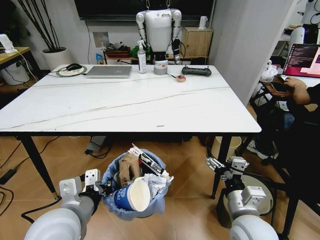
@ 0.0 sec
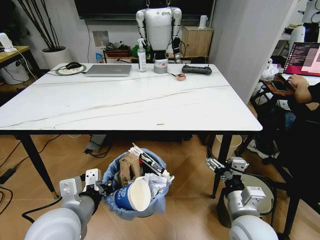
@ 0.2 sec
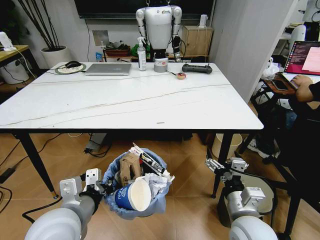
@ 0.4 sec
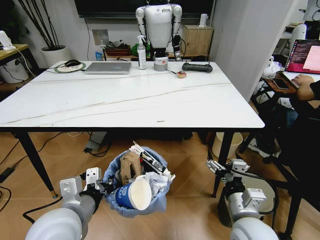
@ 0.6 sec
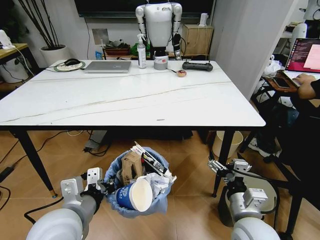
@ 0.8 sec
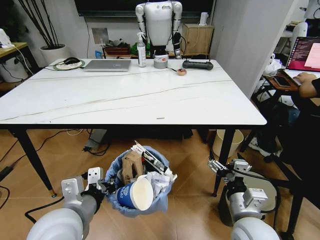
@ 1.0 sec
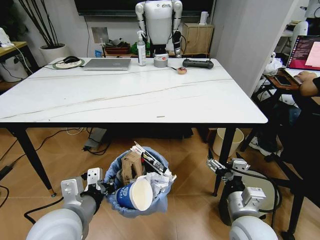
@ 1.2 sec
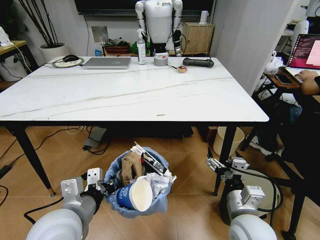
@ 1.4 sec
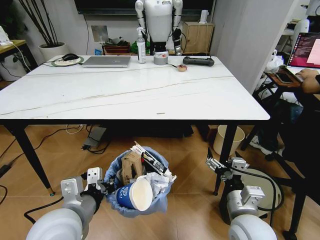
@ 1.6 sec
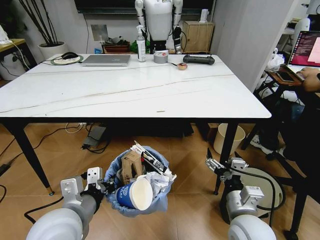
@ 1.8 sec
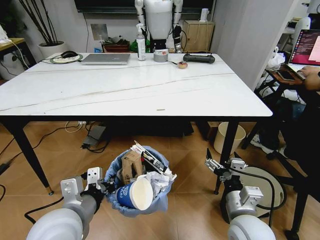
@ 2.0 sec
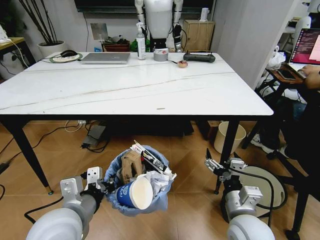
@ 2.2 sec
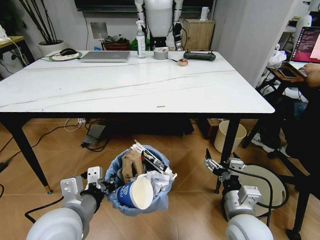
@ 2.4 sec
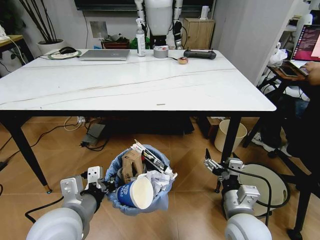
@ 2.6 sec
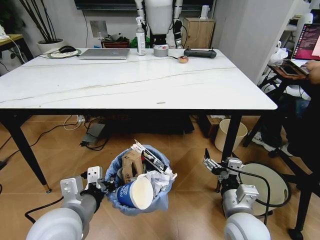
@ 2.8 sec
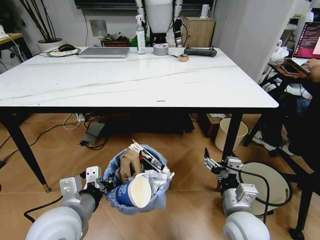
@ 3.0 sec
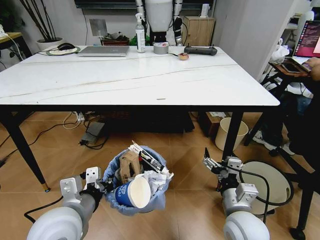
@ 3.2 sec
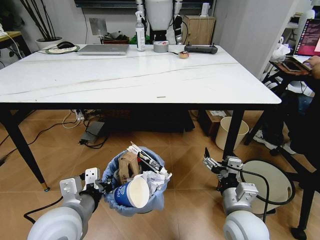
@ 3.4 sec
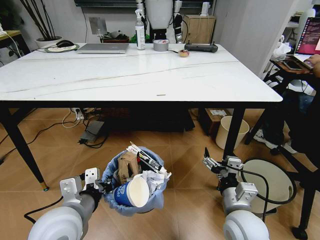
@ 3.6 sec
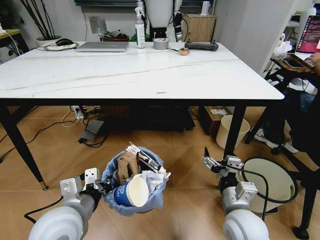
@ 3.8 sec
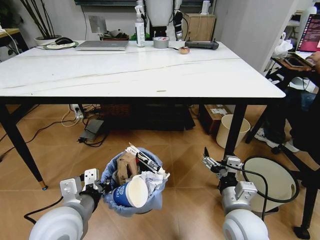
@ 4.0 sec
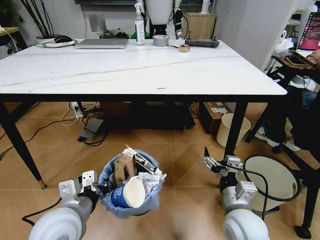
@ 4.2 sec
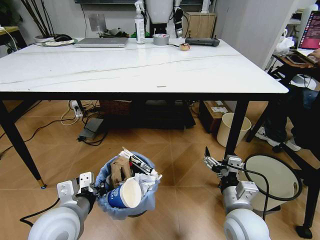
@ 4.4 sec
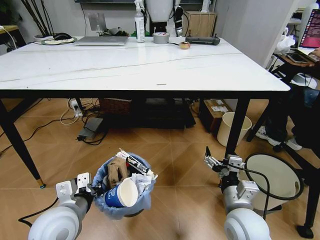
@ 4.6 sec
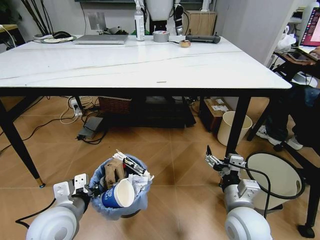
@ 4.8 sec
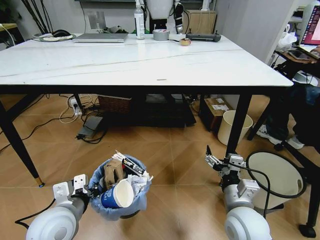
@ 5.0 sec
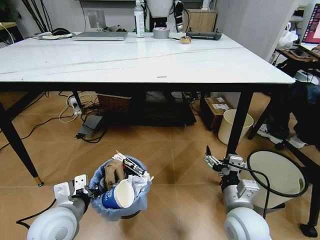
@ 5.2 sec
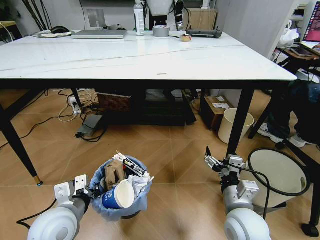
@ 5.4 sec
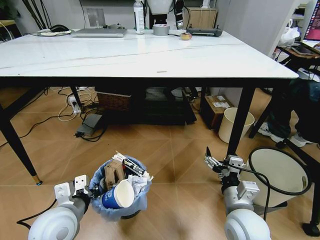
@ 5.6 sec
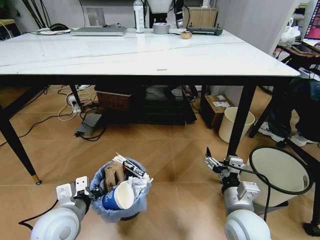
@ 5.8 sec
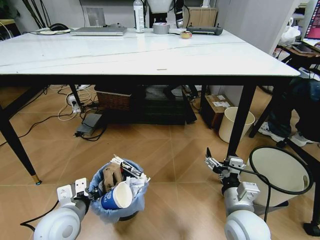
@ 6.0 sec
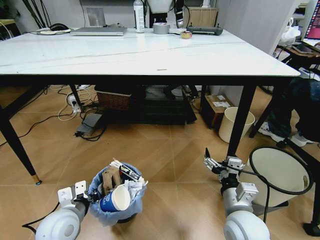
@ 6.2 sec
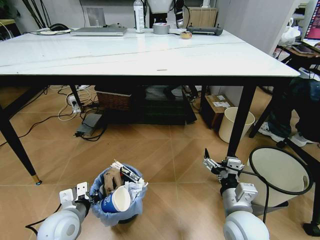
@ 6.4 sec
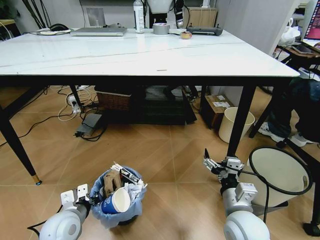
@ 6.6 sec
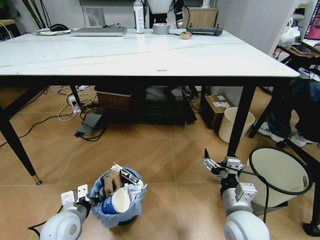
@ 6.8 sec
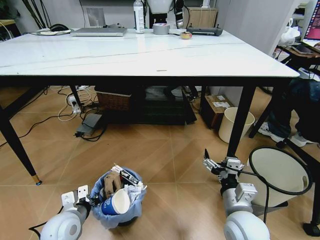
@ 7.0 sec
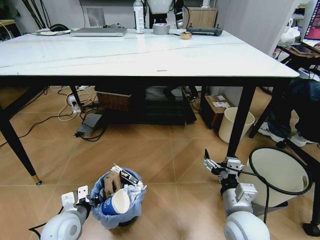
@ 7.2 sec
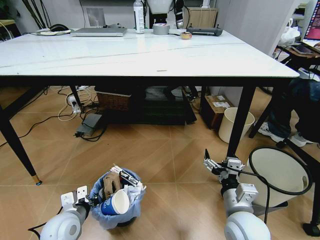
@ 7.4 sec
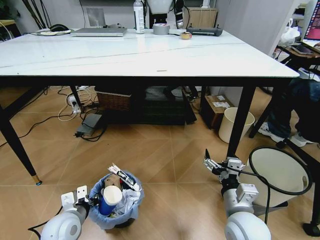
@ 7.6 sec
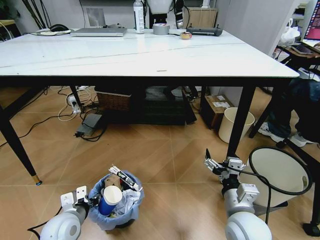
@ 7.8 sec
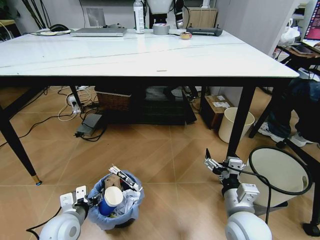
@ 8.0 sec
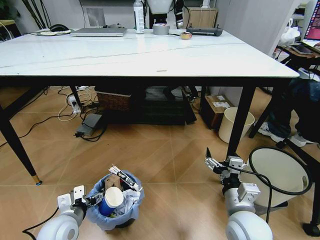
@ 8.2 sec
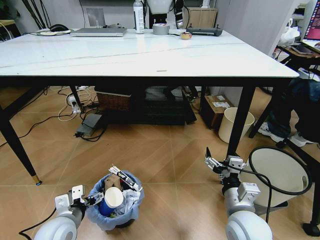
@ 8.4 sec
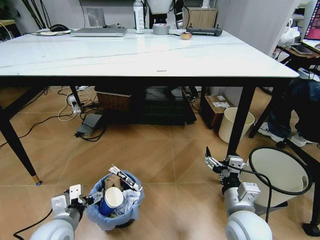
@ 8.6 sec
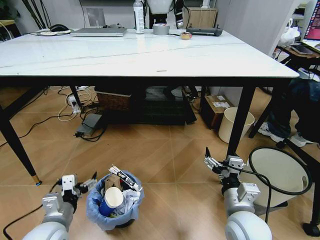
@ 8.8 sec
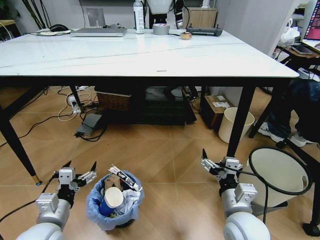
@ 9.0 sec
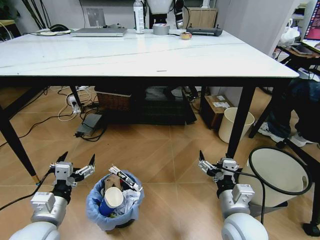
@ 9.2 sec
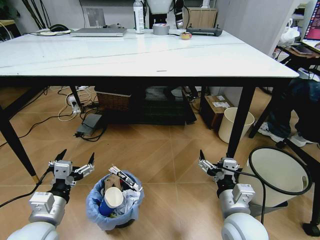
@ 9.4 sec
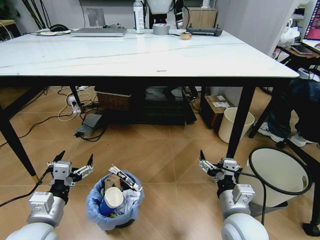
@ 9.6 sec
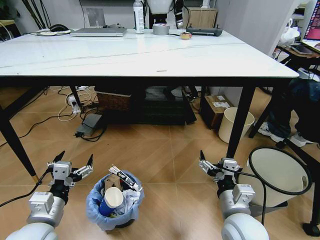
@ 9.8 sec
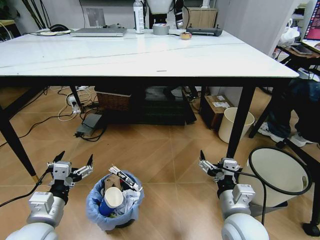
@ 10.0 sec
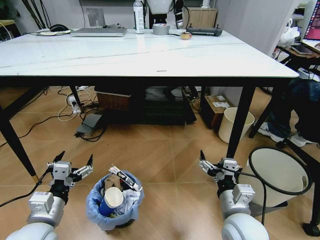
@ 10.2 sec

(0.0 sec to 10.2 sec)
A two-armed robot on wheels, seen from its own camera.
Task of the whole recording: Pick up the trash bin and place the trash from the table into it.
5.8 sec - 7.2 sec: The left gripper moves downward, approximately 10 cm.
7.2 sec - 8.8 sec: The left gripper shifts by roughly 5 cm, and opens its fingers.

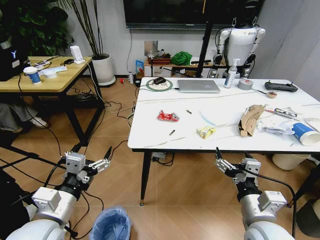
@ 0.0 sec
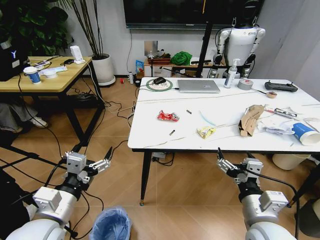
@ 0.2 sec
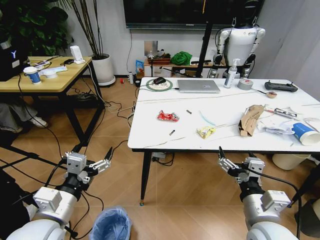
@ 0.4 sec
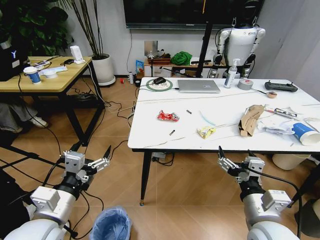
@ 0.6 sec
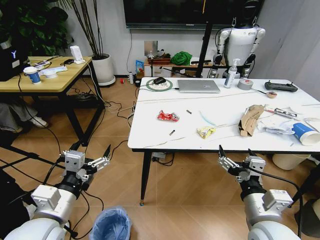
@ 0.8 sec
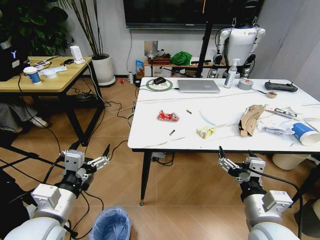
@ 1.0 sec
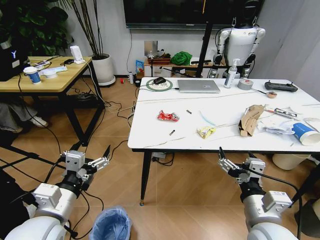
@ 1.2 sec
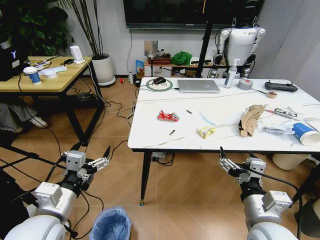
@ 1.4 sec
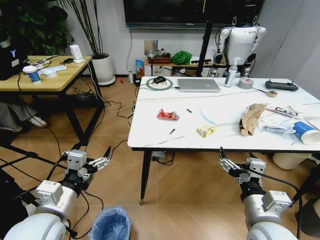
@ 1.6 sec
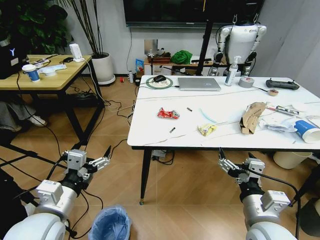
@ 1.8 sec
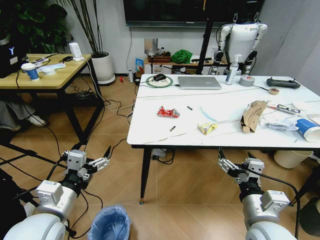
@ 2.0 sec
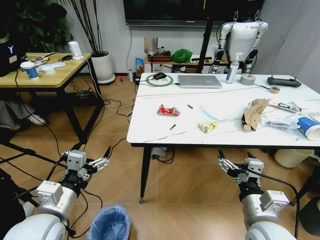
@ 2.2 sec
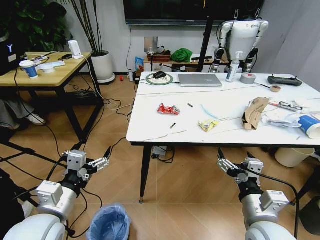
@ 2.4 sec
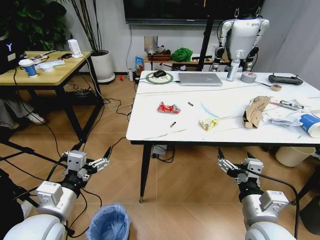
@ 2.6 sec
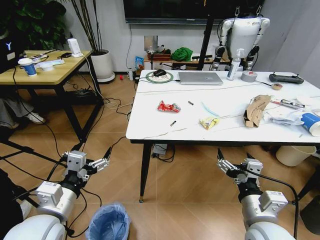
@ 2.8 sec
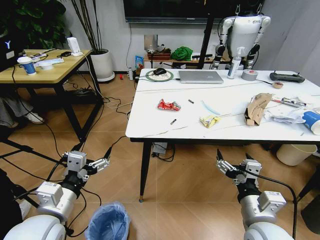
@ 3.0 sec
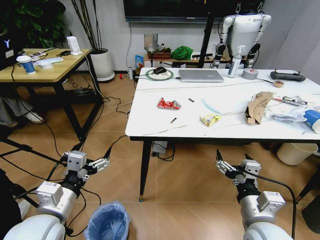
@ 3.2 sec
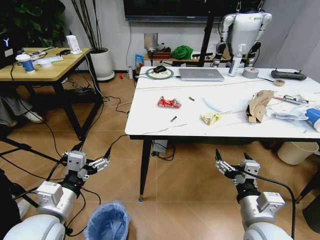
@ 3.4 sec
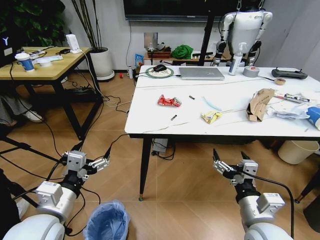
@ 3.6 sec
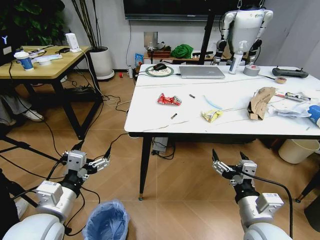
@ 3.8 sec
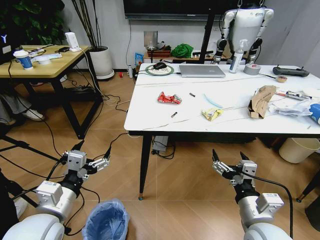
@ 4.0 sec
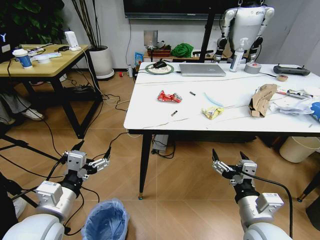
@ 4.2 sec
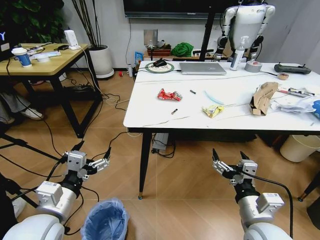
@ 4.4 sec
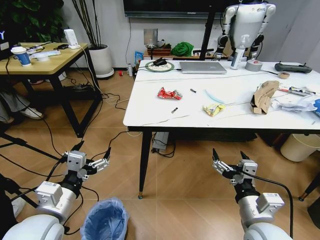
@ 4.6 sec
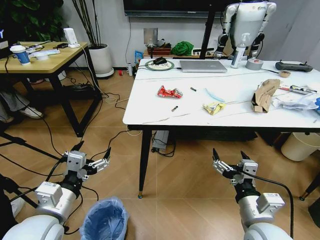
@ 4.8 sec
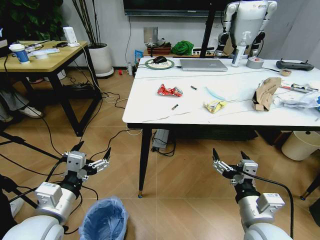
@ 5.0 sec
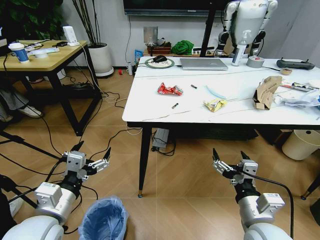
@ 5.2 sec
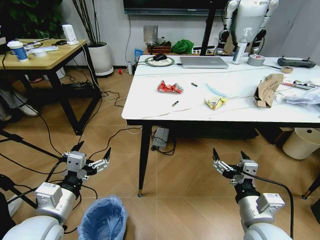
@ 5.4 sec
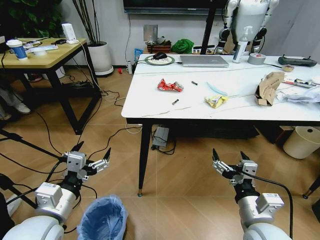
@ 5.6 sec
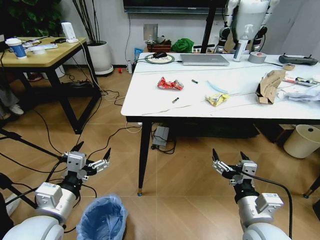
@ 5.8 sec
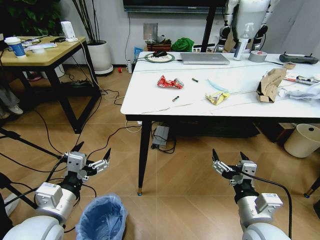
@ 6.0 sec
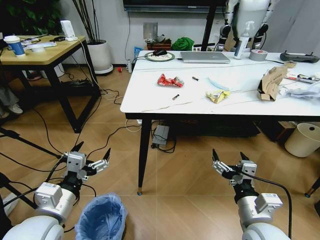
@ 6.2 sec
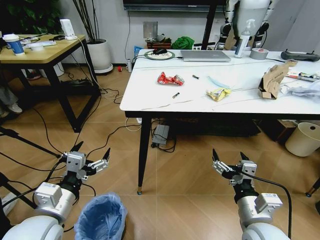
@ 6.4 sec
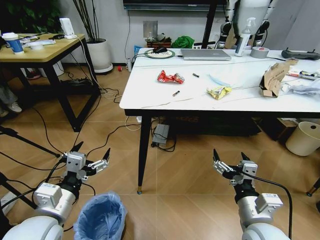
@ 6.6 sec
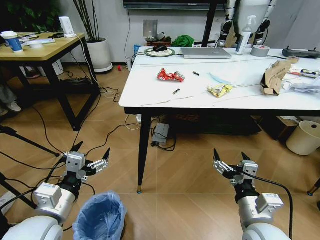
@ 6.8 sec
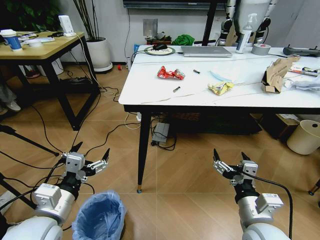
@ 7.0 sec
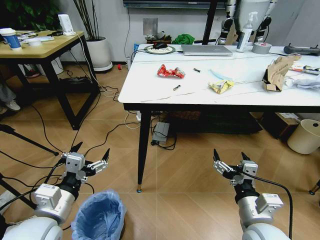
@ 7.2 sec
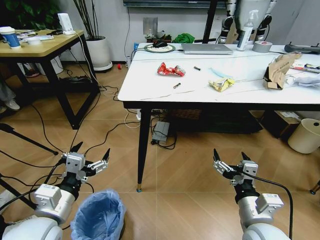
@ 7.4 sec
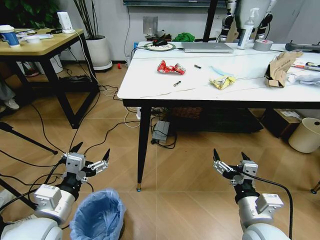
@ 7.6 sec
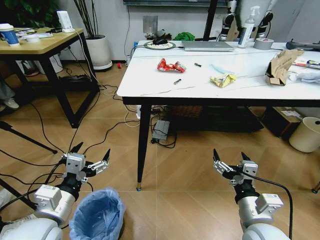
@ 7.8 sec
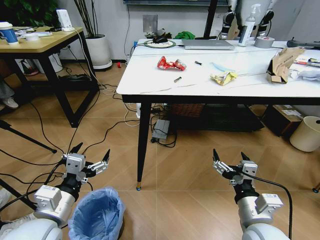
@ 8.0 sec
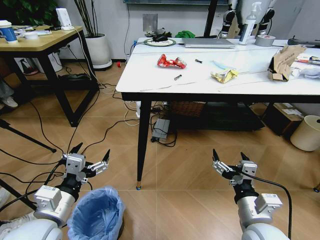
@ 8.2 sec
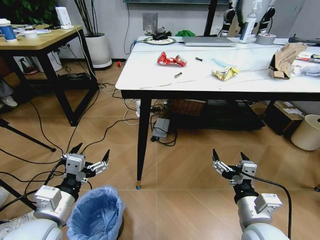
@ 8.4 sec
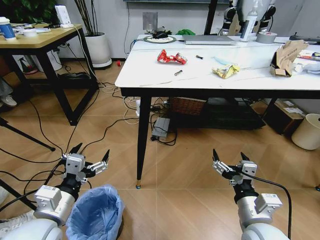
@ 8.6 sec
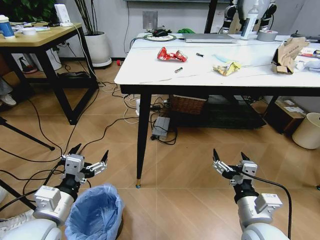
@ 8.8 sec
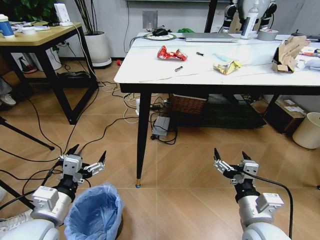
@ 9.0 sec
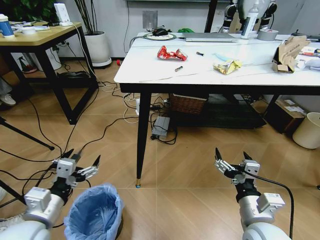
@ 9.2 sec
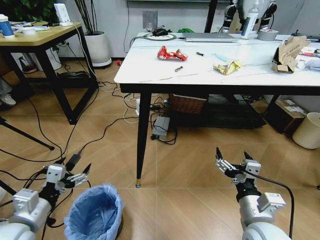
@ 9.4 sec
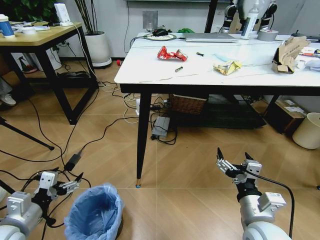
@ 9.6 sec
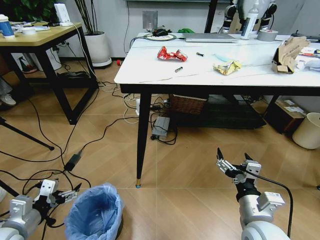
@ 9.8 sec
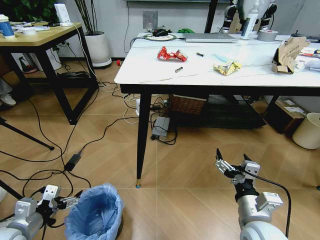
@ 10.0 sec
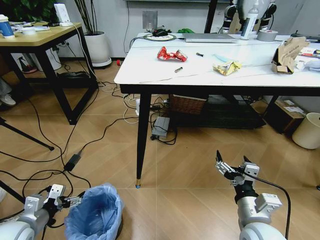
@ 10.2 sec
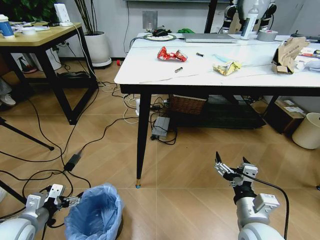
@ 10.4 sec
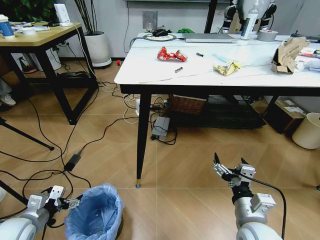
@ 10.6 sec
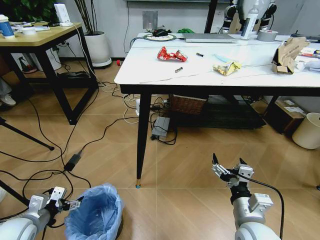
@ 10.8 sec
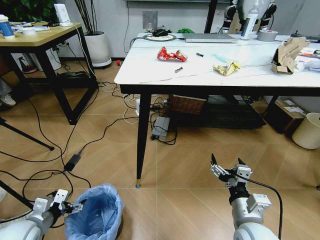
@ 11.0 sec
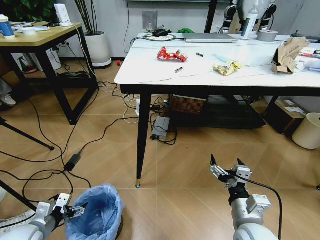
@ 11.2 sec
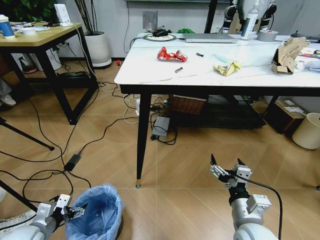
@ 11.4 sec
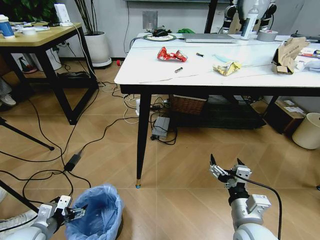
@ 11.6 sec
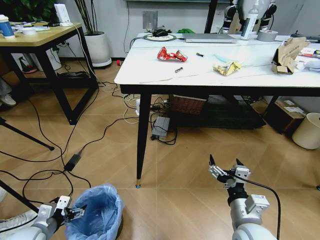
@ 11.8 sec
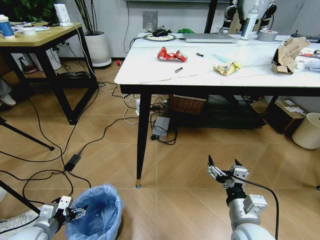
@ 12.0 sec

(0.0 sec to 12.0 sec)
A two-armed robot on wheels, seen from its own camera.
Task of the whole recording: Pick up the trash bin and place the trash from the table into it.
9.0 sec - 10.4 sec: The left gripper moves to the left and downward, roughly 15 cm.
10.4 sec - 12.0 sec: The left gripper moves downward, some 5 cm.
